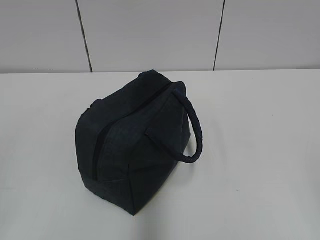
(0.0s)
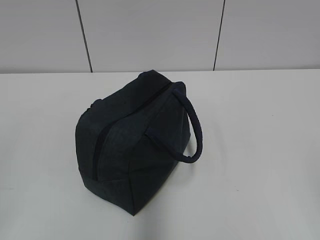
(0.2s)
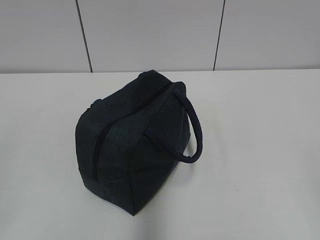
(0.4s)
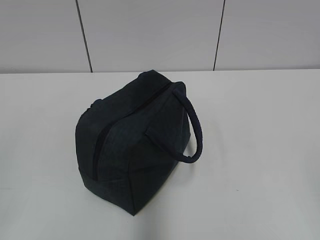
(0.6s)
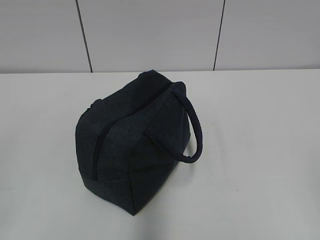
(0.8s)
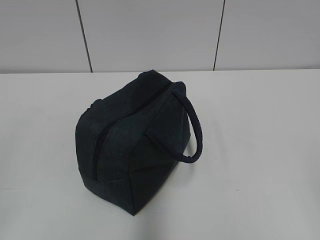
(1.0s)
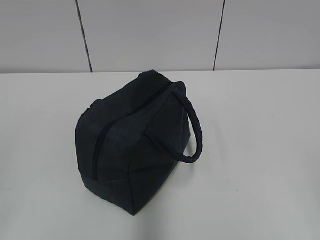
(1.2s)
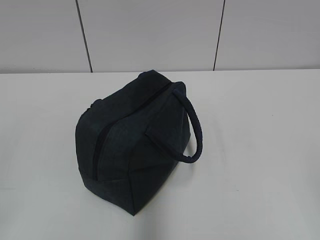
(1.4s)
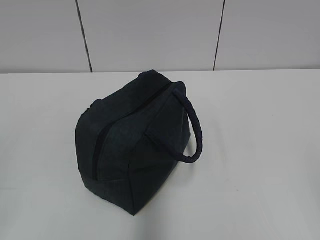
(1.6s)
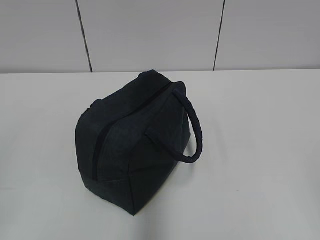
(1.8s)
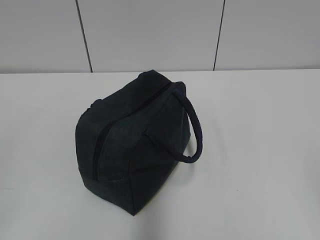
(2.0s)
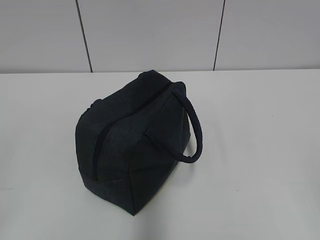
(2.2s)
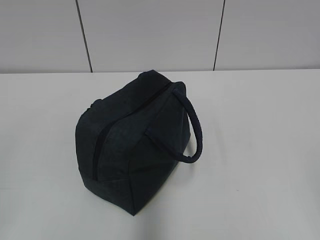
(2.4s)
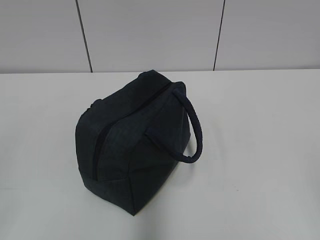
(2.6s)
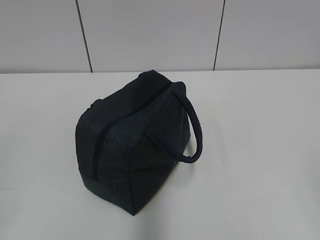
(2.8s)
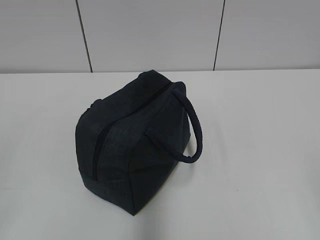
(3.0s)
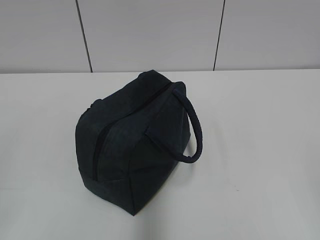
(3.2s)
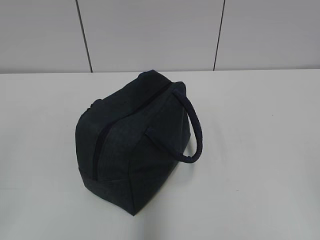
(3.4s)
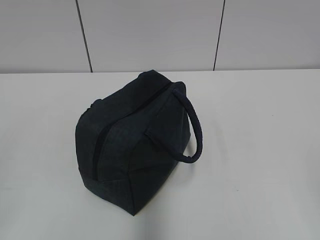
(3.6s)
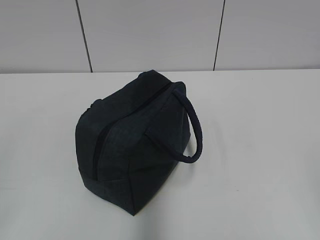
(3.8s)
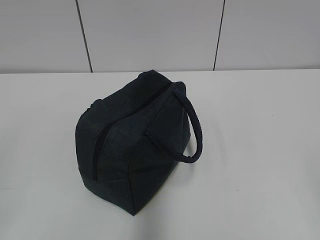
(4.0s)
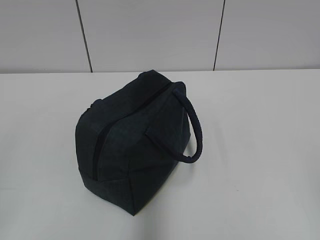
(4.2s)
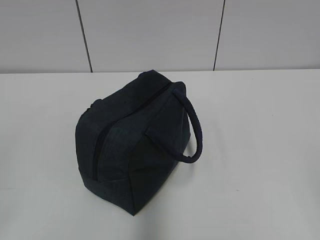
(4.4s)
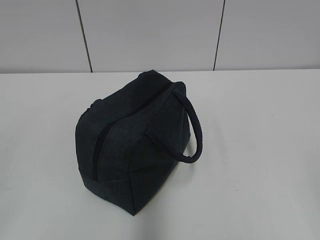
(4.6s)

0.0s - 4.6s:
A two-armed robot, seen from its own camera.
0.0s - 4.6s: Neither gripper changes place.

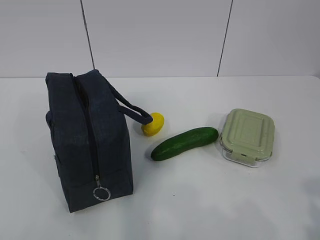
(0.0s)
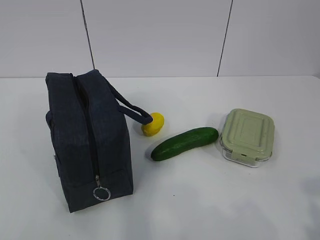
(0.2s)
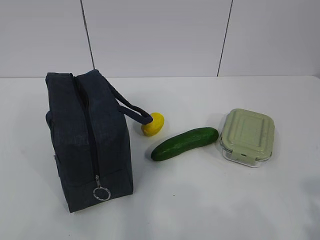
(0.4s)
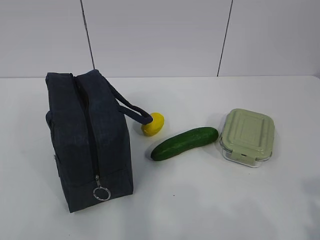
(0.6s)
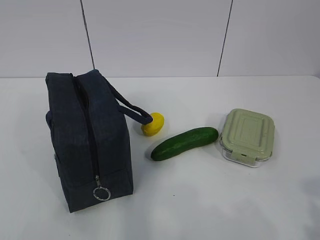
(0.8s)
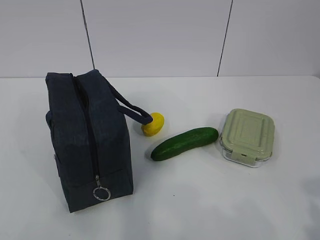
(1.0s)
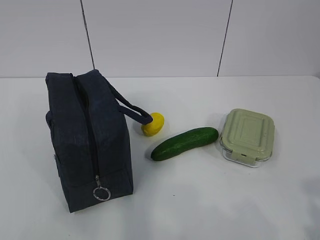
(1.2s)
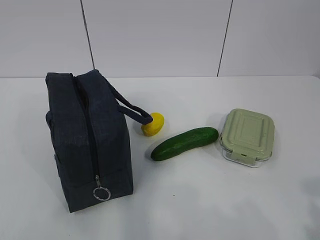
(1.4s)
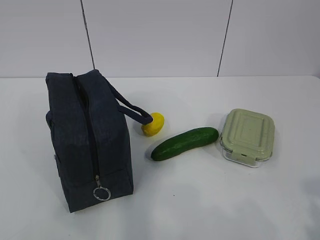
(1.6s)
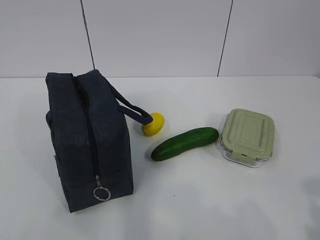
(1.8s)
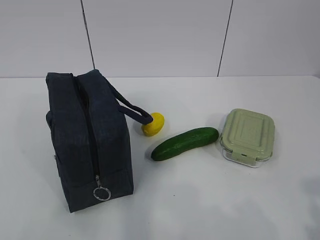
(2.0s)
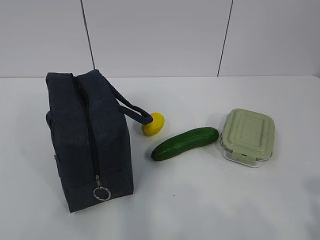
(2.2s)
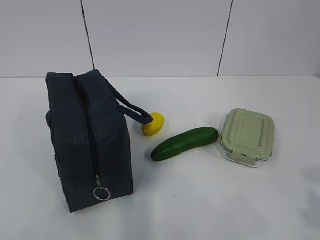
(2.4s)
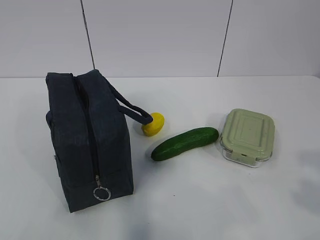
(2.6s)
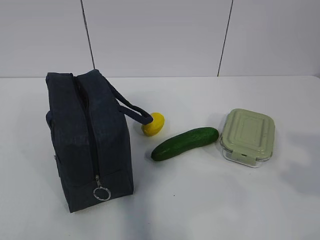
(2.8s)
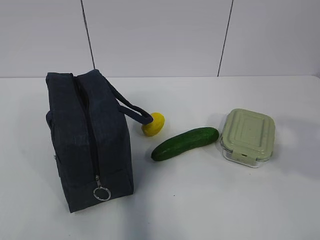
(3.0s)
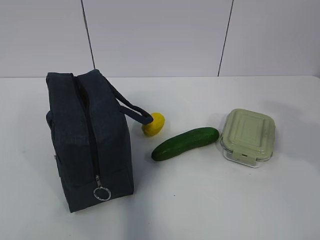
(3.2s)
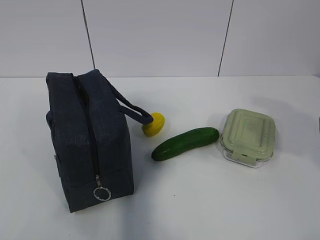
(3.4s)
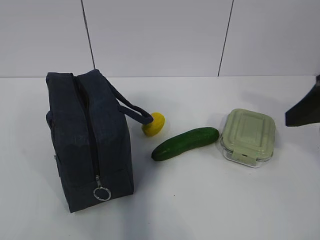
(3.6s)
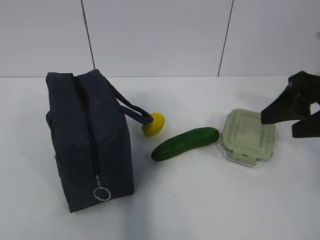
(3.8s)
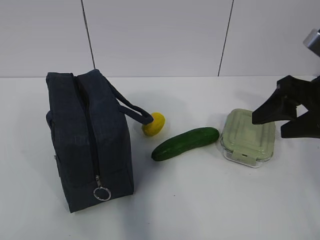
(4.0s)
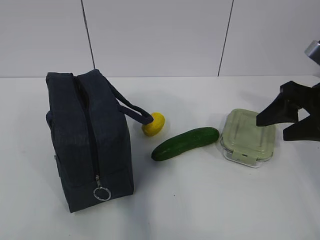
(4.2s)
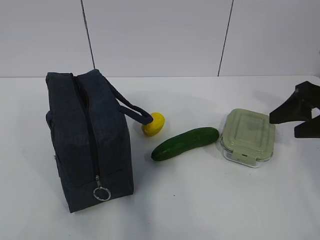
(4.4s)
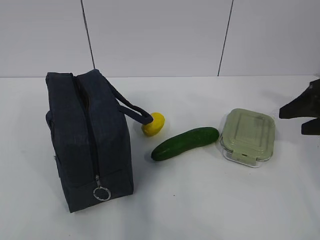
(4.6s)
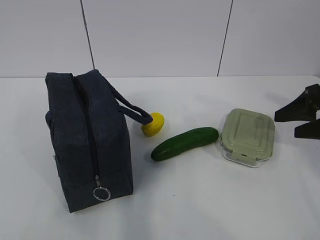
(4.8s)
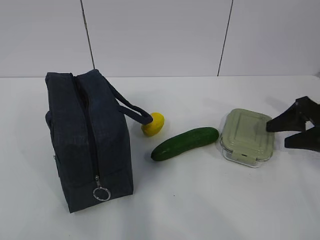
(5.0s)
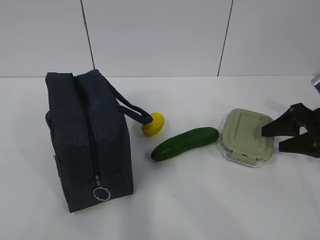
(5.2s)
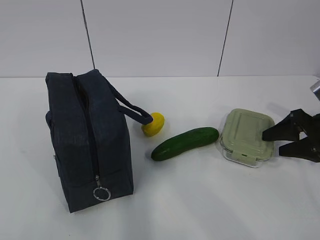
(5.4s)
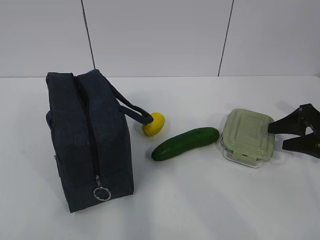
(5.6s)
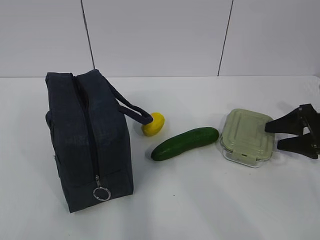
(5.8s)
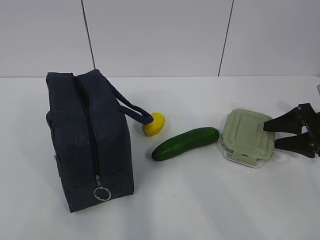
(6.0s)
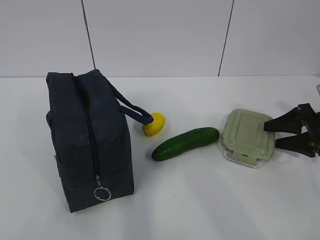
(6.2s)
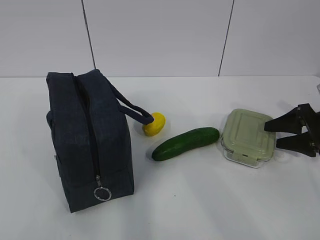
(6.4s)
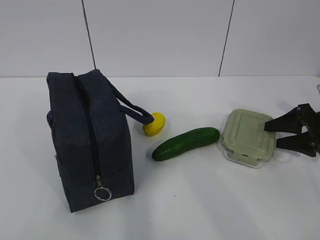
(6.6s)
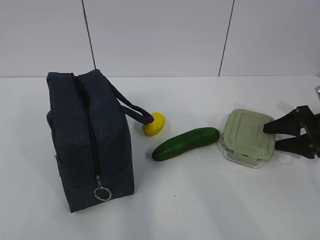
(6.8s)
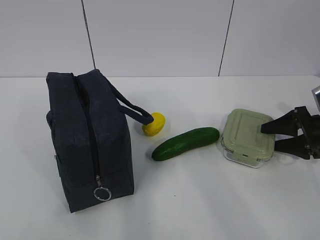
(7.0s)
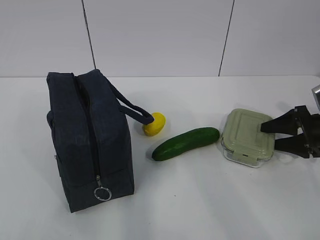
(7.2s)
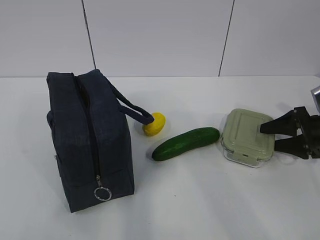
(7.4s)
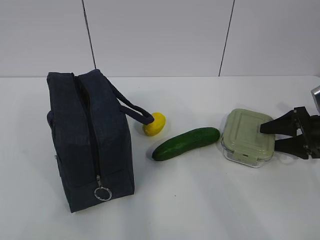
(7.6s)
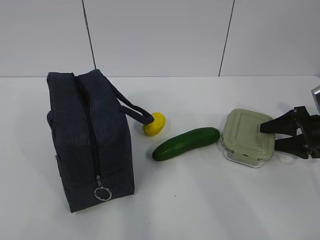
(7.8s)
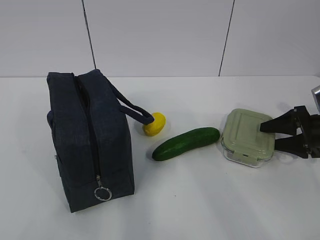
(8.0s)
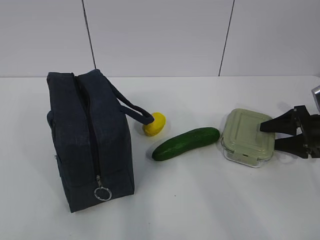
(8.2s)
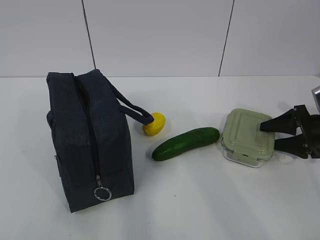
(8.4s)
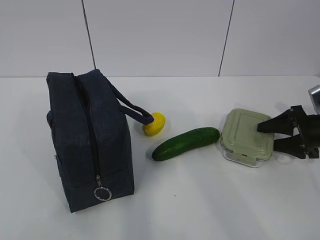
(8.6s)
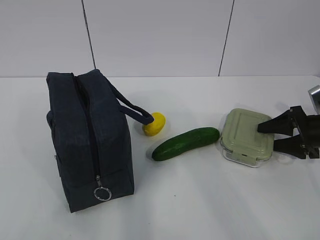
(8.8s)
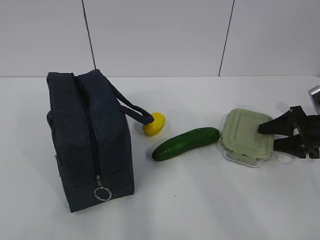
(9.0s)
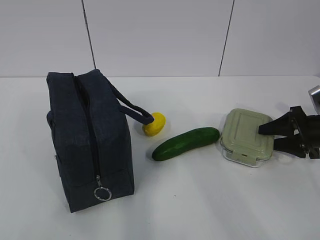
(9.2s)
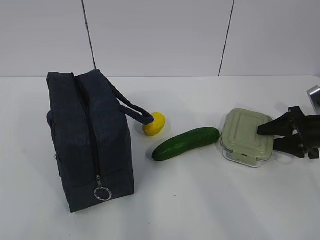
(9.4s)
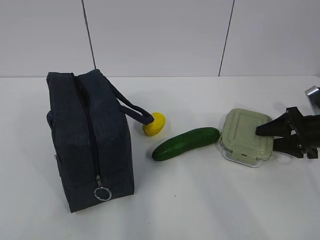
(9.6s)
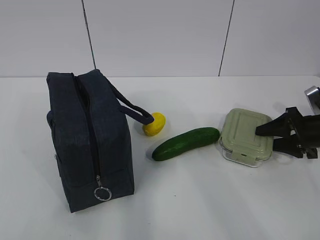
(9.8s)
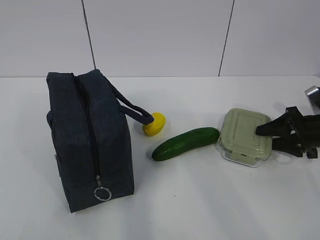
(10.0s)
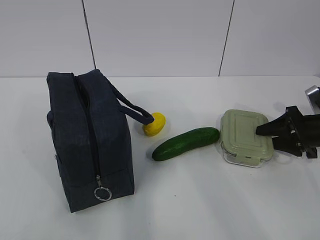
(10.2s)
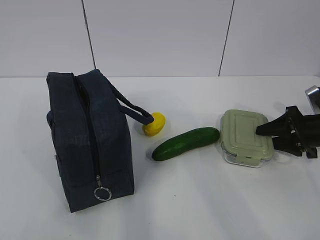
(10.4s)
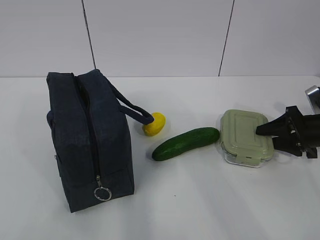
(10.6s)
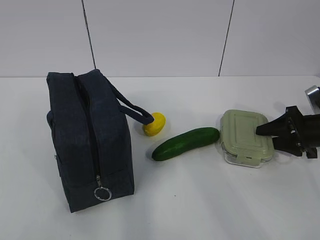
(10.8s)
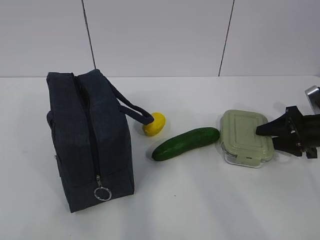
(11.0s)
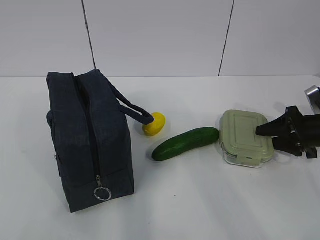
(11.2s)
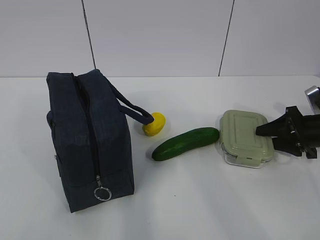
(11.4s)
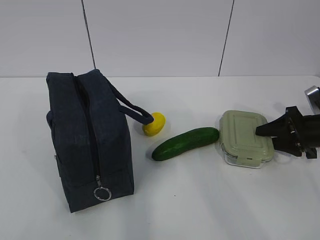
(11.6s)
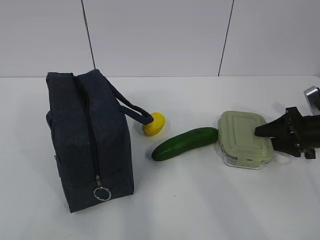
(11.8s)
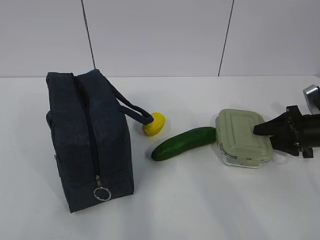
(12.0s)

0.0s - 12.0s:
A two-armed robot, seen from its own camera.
Step, 0.0s - 9.8s: Grab the lunch box with your right hand.
1.6s - 3.0s: The right gripper heads forward and upward, covering some 10 cm.
3.0s - 4.4s: The right gripper goes about 25 cm forward and downward.
4.4s - 6.0s: The right gripper moves downward and to the right, about 15 cm.
6.0s - 7.6s: The grippers make only small movements.
7.6s - 10.4s: Both grippers stay put.
10.4s - 12.0s: Both grippers stay about where they are.

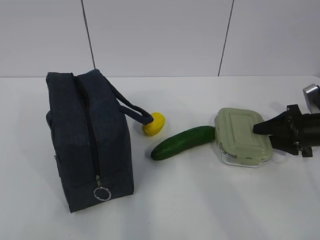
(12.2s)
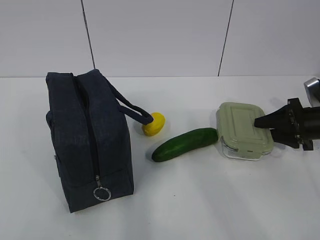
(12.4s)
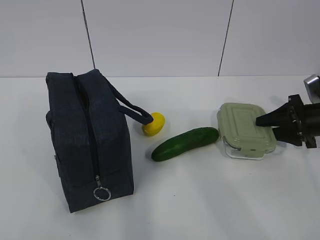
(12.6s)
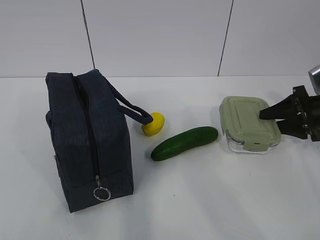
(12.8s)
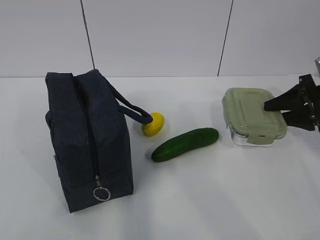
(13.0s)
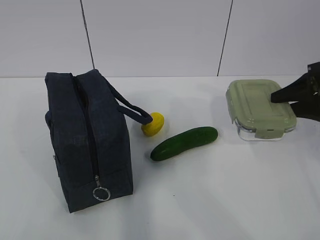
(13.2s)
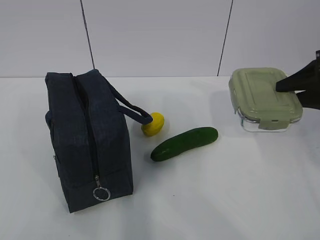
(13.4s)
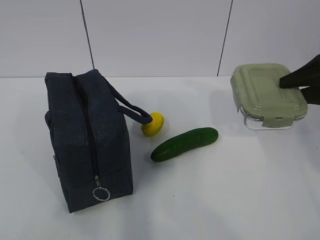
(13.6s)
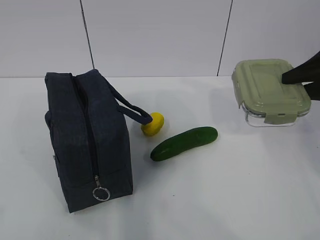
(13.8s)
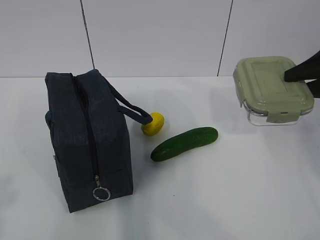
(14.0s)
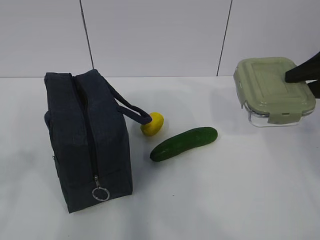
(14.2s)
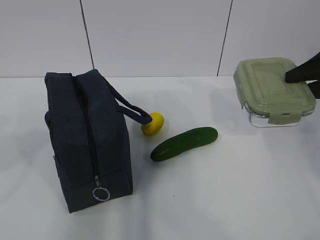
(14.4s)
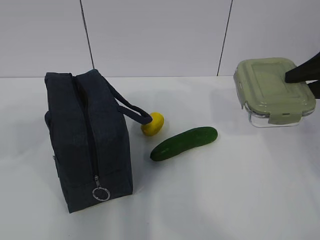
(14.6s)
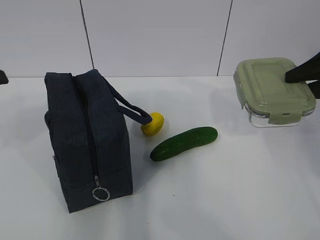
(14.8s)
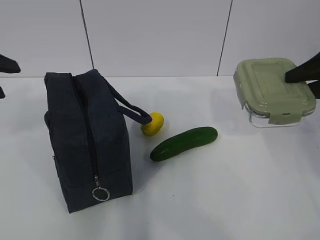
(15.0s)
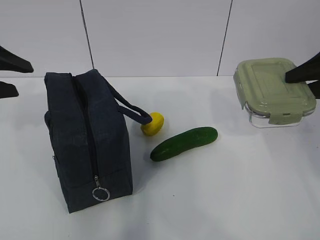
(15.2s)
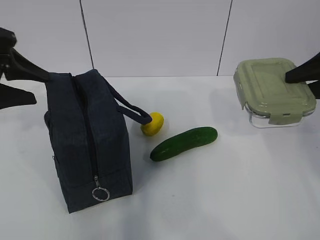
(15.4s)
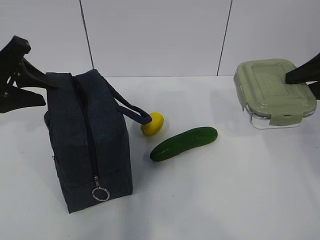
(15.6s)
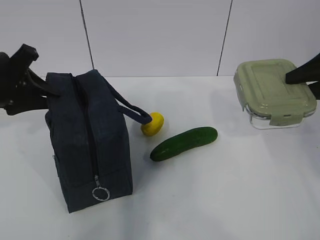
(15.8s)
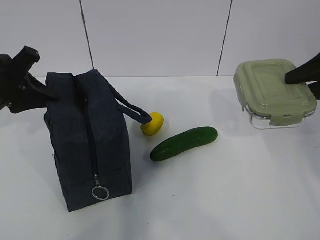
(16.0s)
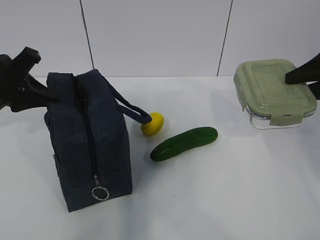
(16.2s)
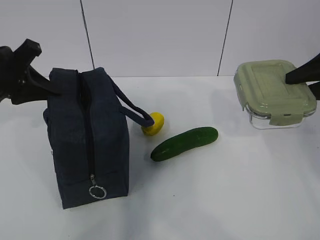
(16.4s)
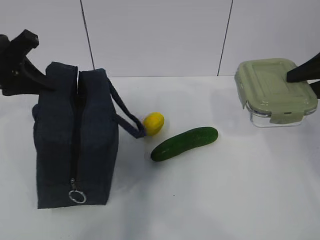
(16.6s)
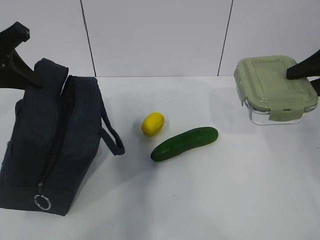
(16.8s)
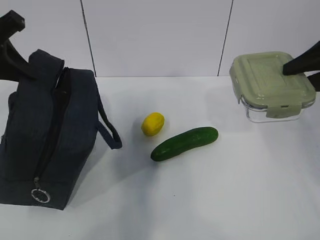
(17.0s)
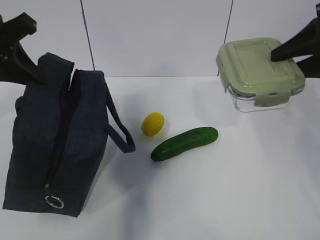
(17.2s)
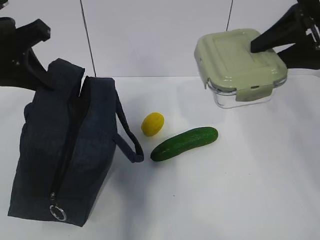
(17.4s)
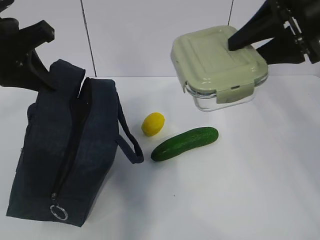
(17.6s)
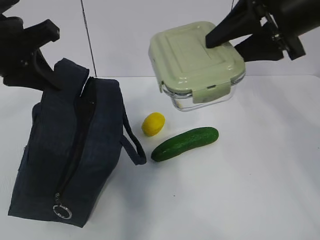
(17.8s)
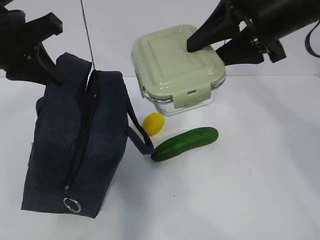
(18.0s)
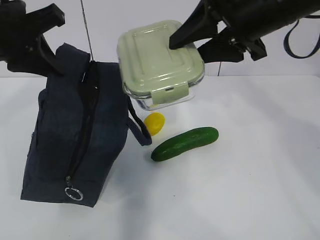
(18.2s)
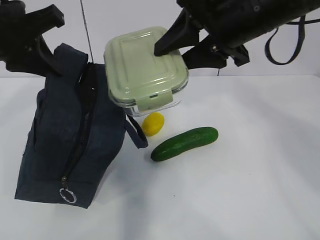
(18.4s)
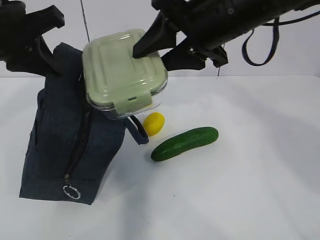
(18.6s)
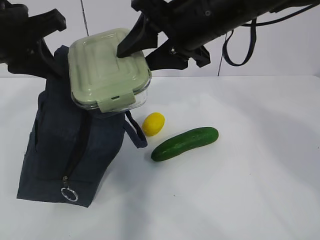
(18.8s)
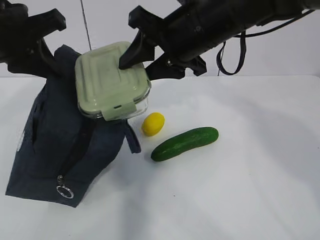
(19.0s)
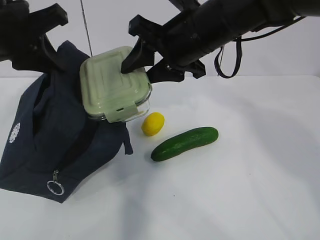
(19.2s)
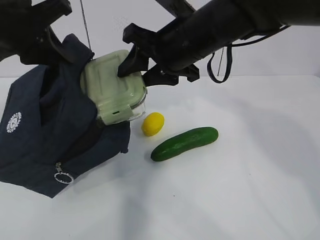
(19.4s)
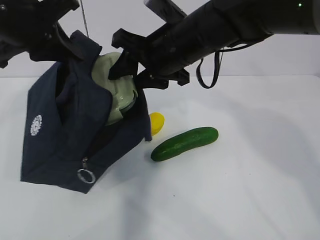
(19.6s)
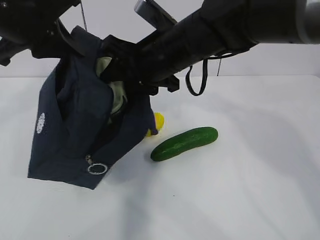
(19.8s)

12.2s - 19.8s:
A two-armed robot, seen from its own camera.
Step, 12.2s - 15.2s: Grab the lunch bag with your left hand.
Step, 15.4s - 17.2s: Place it into the bag with your right hand.
12.2s - 13.8s: The right gripper shifts some 15 cm upward.
13.8s - 15.2s: The left gripper moves forward, some 25 cm.
15.2s - 16.8s: The left gripper shifts by roughly 5 cm, and closes its fingers.
16.8s - 18.2s: The left gripper moves to the right, roughly 5 cm, while the right gripper goes approximately 20 cm to the left.
18.2s - 19.8s: The right gripper goes roughly 15 cm to the left and downward.
